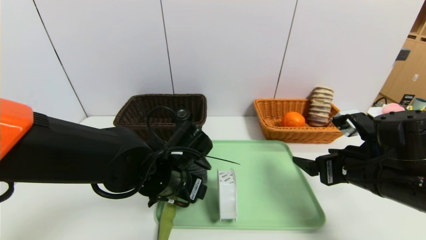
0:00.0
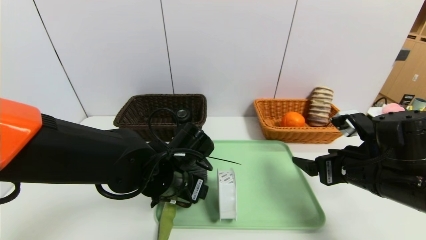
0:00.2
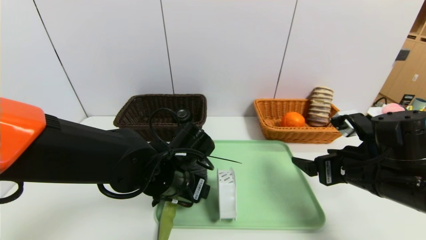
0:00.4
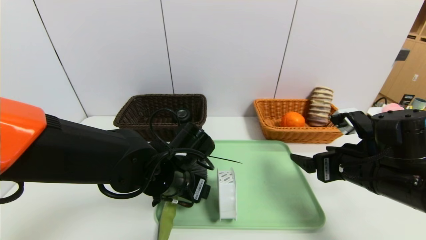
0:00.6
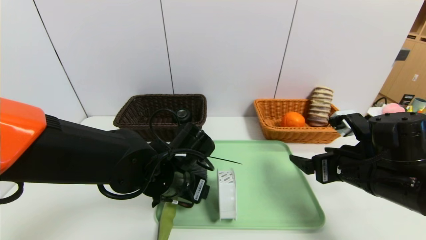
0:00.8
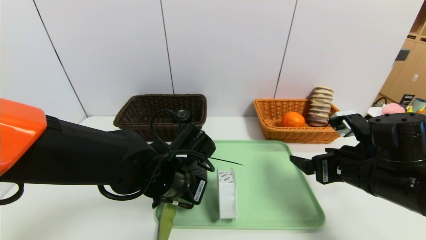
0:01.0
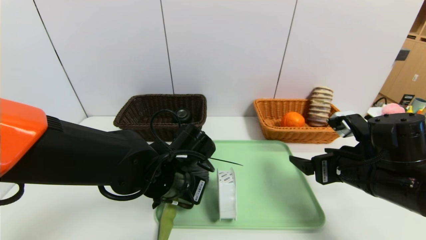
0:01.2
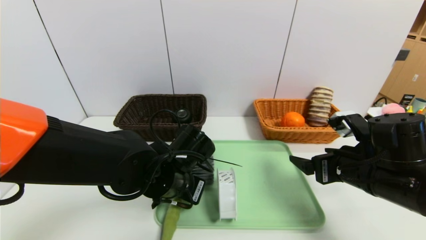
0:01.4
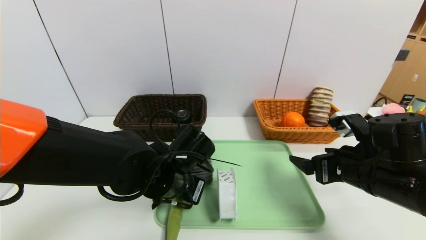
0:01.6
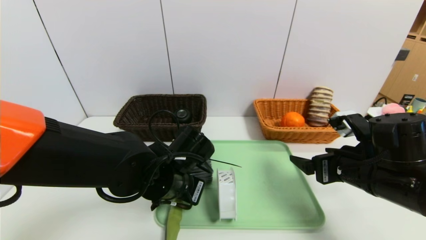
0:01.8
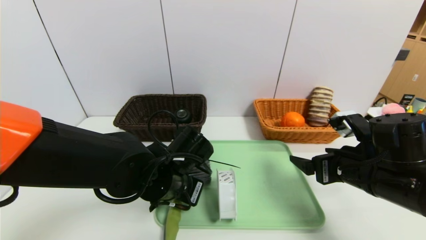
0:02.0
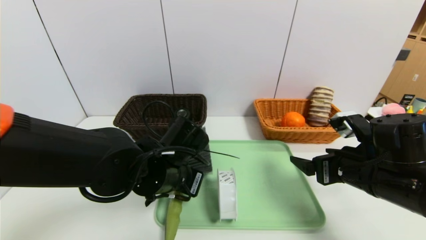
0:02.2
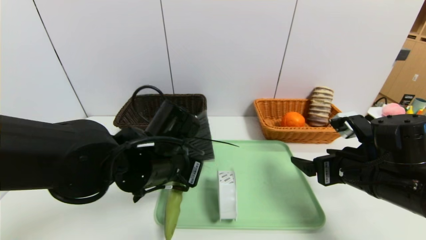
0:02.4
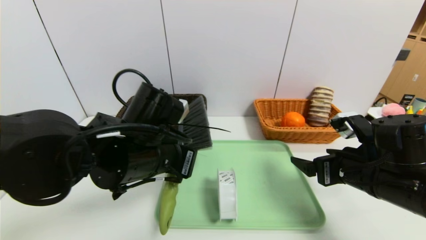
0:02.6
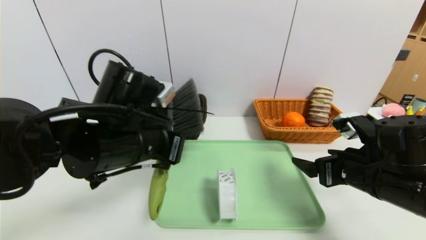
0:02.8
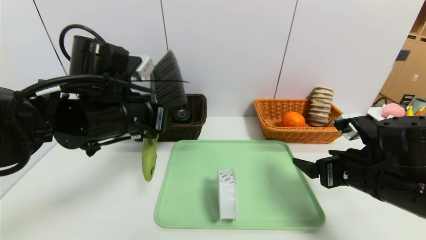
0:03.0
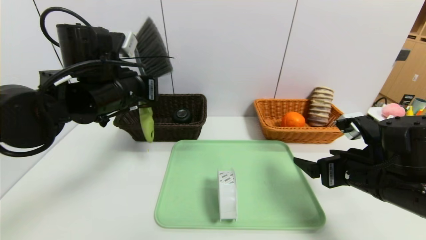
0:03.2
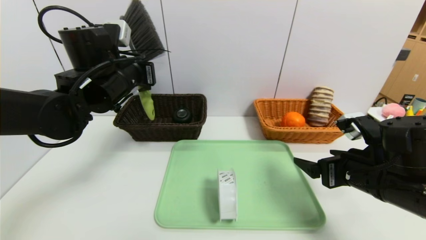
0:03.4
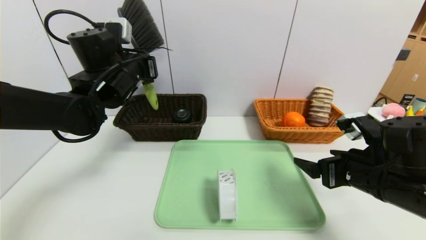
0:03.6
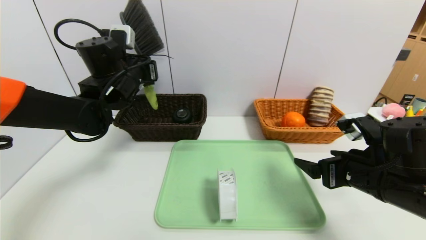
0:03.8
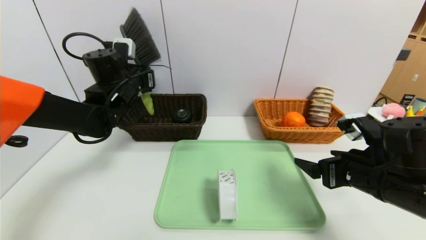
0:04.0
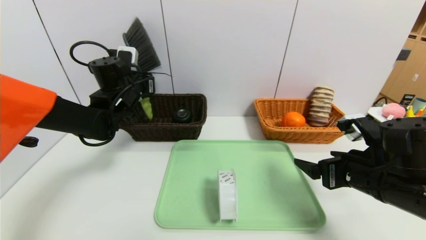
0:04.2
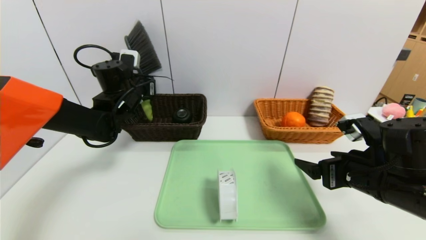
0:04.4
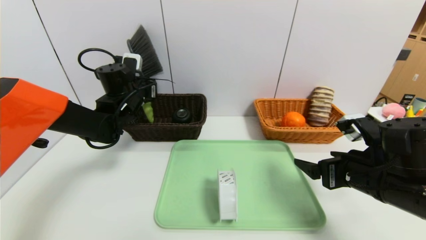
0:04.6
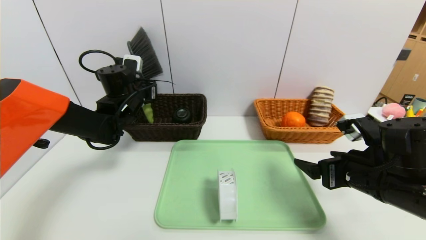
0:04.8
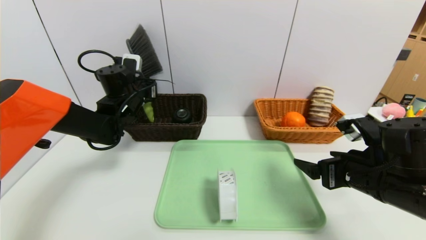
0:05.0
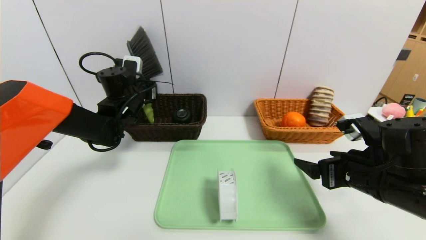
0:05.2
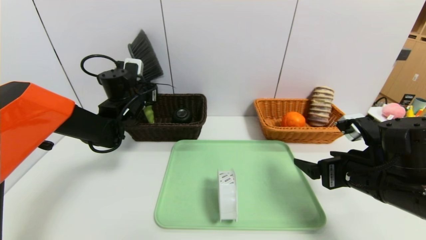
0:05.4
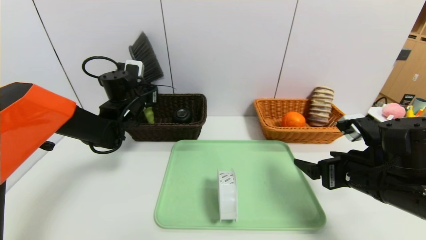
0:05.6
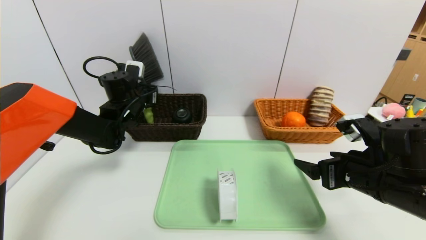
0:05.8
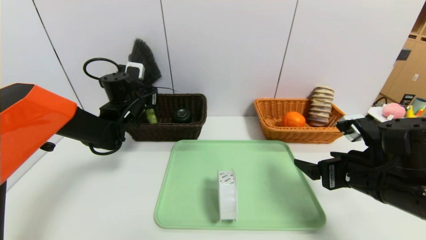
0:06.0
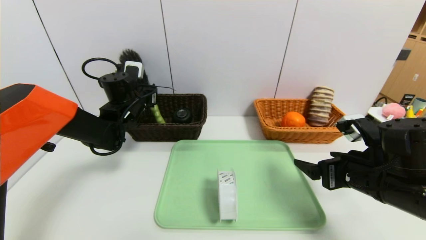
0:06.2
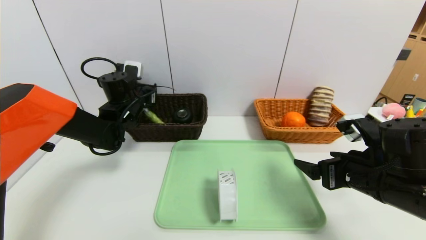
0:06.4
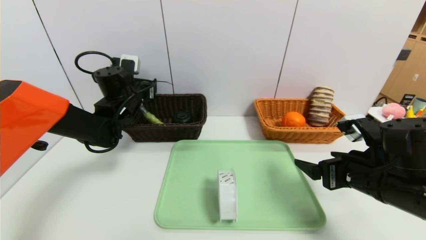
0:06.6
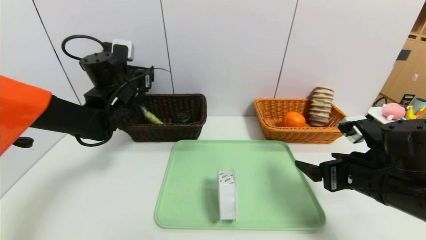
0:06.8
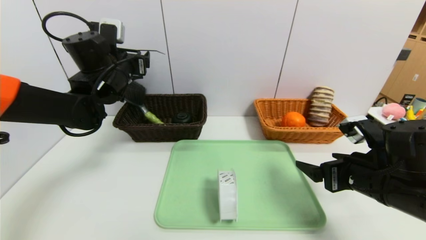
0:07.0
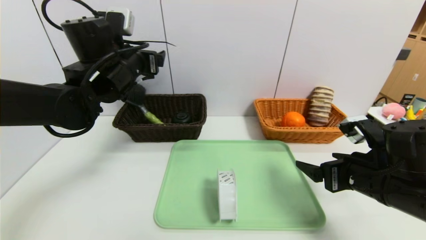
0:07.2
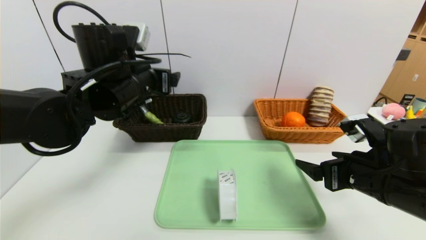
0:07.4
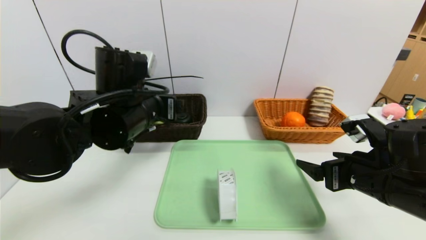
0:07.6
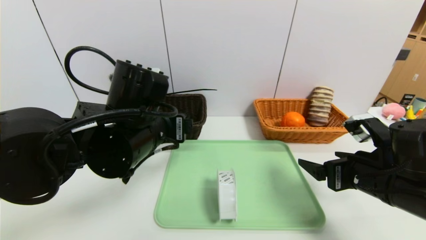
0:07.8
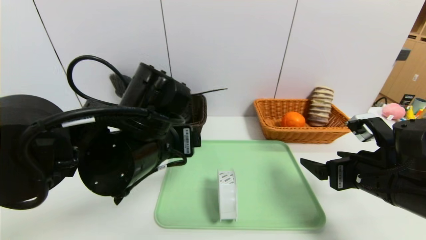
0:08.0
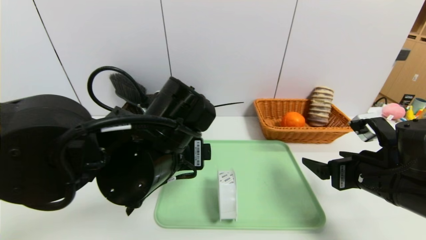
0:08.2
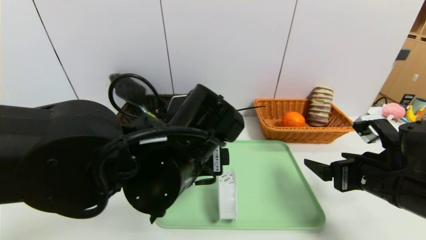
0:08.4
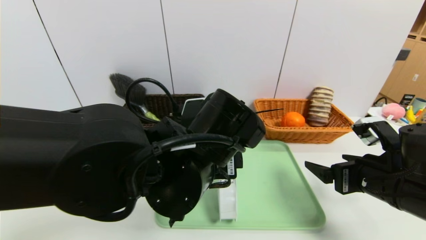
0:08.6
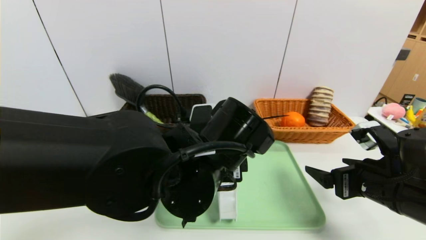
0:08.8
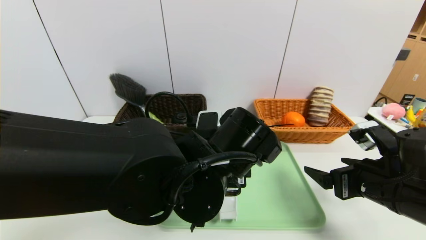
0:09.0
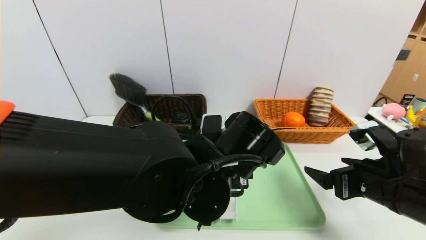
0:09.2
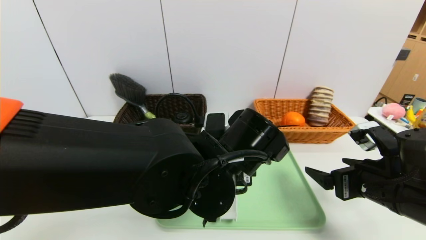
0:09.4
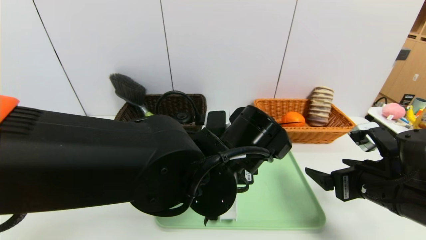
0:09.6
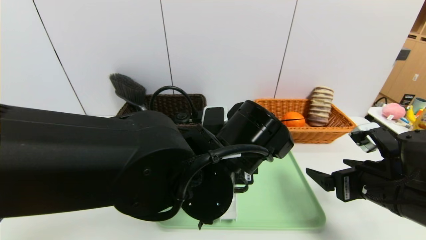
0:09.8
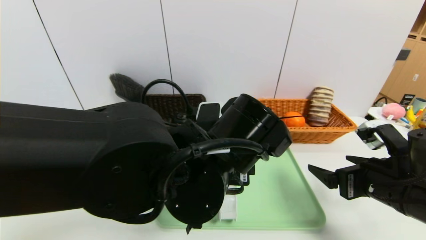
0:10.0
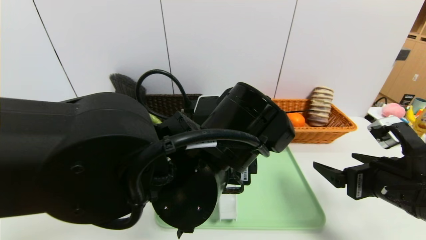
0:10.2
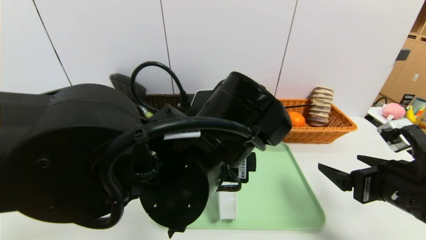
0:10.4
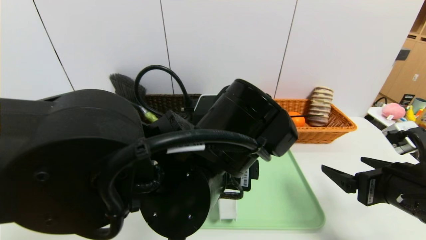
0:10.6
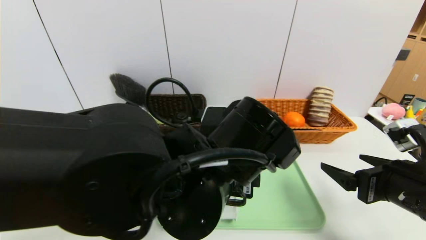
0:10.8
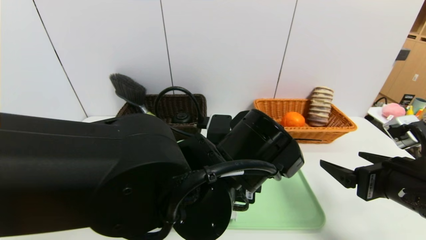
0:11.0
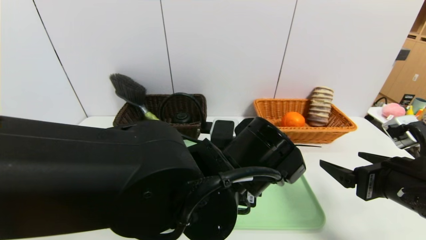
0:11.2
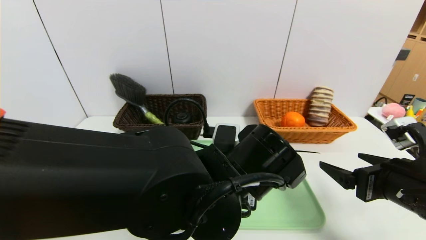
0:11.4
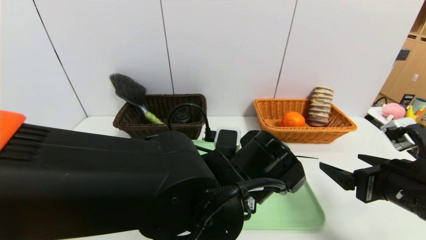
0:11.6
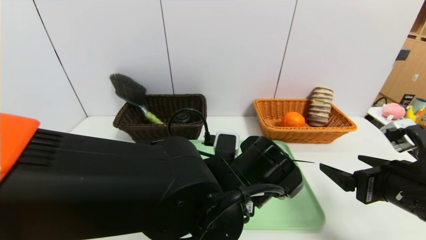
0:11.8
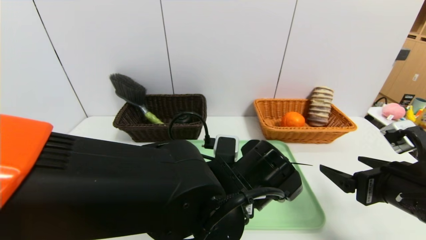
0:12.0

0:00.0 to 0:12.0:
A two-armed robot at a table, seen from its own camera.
Task of the whole recording: place the food in the right basket with the right gripper, and place the non food items in the left basket with the left gripper.
Step, 0:00.0 to 0:06.8: Grasp the brush and put it in the left basket.
0:00.0 to 0:01.6: The left gripper closes its fingers.
0:01.6 to 0:03.0: The left gripper shifts some 15 cm upward and to the left.
0:03.0 to 0:04.4: The left gripper travels forward by about 15 cm.
0:04.4 to 0:06.0: The grippers move only a little.
0:06.0 to 0:07.6: The left gripper heads backward, to the right and upward, covering roughly 20 cm, and opens up.
0:07.6 to 0:09.0: The left gripper shifts about 15 cm to the right and backward.
0:09.0 to 0:10.4: The left gripper moves about 5 cm.
0:10.4 to 0:12.0: The left gripper travels downward by about 10 cm.

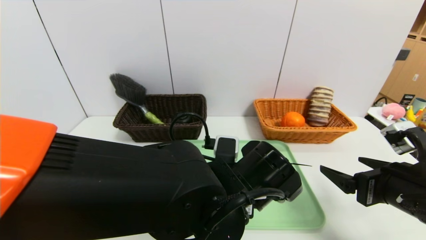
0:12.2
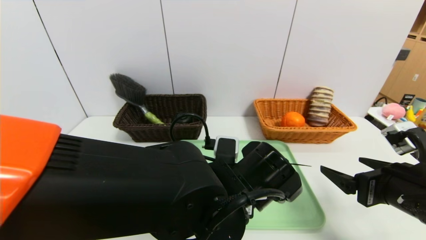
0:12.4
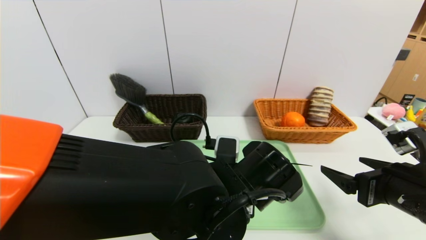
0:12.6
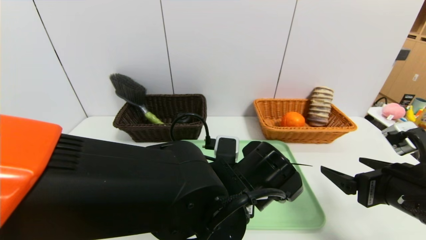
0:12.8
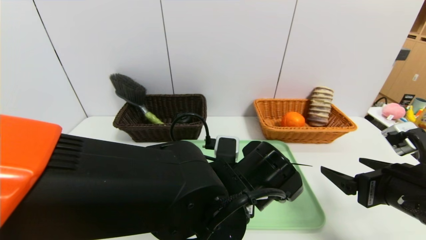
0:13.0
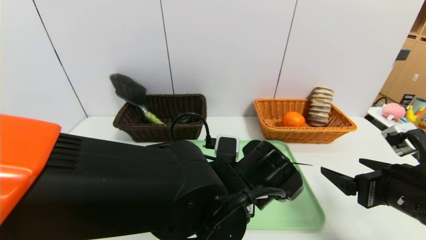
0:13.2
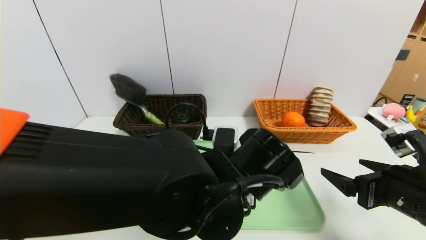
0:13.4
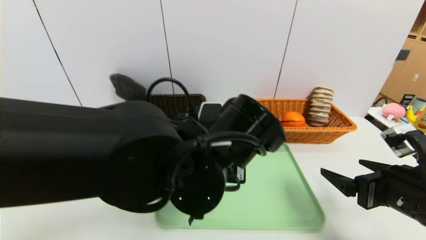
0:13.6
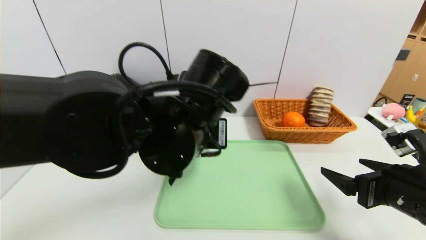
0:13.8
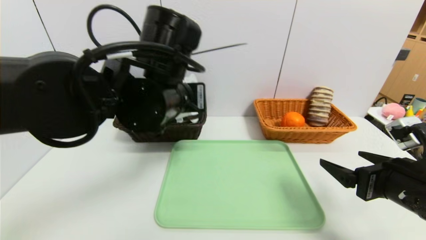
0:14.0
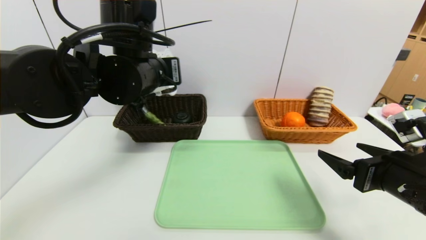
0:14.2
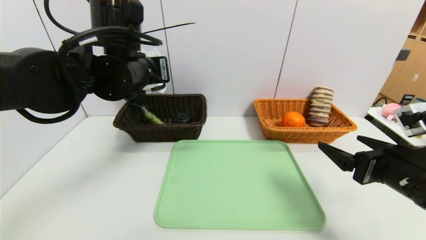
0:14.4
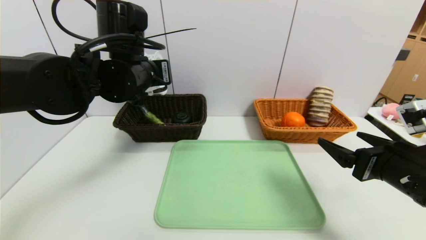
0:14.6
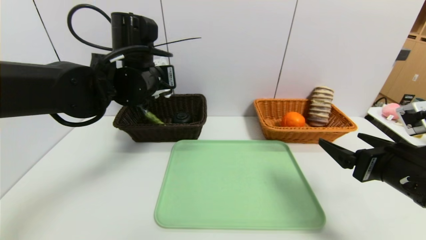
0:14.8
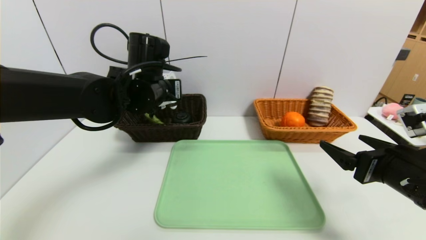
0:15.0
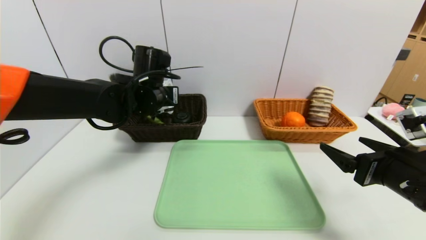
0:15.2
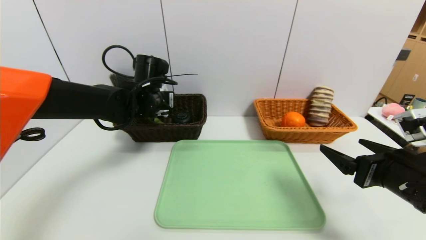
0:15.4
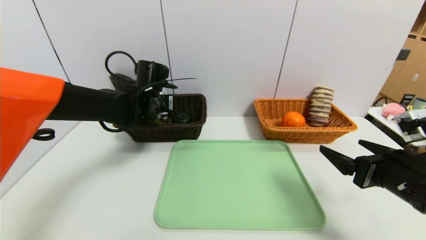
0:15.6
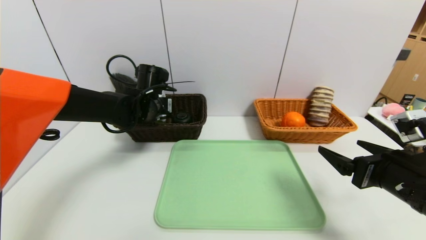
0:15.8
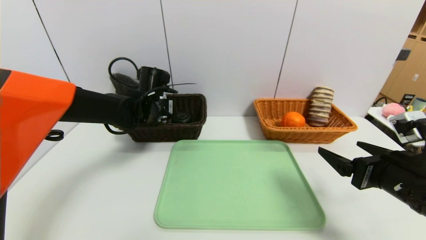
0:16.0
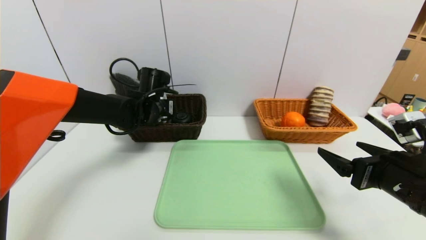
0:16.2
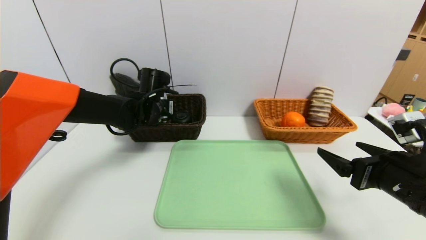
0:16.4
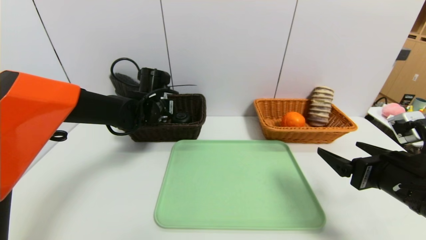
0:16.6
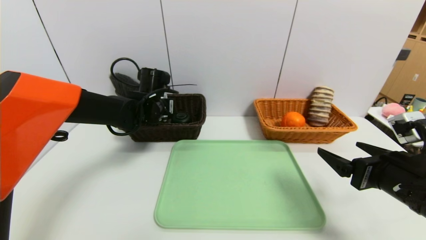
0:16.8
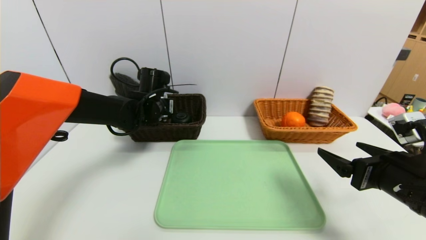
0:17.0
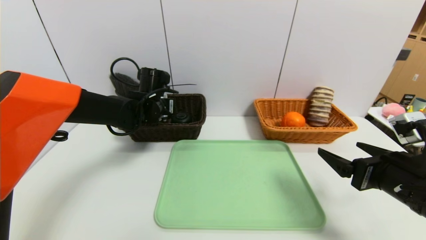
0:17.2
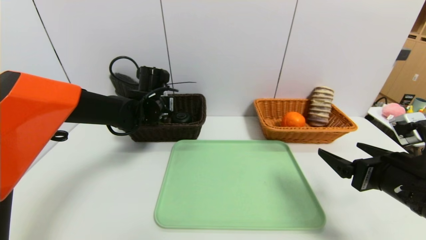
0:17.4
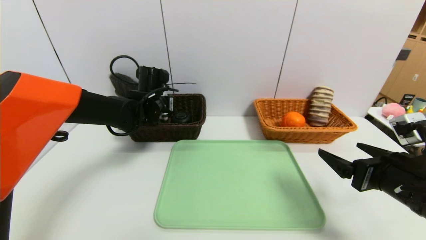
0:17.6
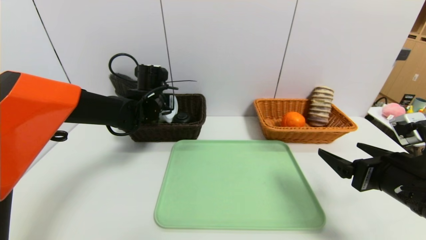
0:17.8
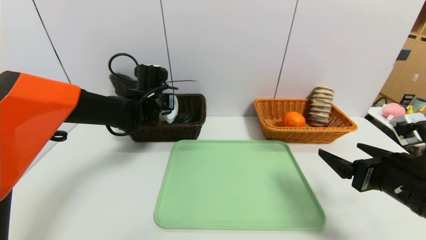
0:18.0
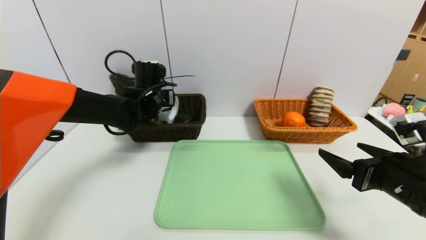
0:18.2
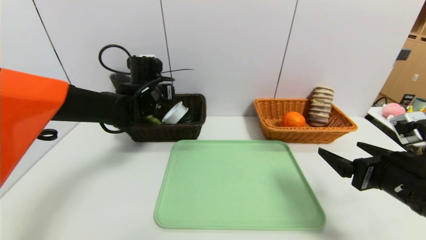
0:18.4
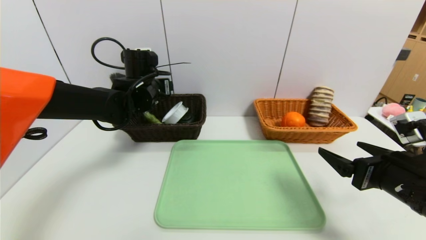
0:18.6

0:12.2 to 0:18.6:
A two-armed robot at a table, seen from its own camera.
Task of the whole recording: place the food in the right basket with the right gripper, and place the non food items in the left basket with the left gripper.
Step, 0:12.2 to 0:18.6: Grasp the tape and put it in the left basket.
0:12.2 to 0:13.8: The left gripper travels upward and to the left by approximately 10 cm, and closes its fingers.
0:13.8 to 0:15.4: The left gripper travels forward and to the left by approximately 20 cm.
0:15.4 to 0:17.0: The grippers make only small movements.
0:17.0 to 0:18.6: The left gripper opens its fingers.
